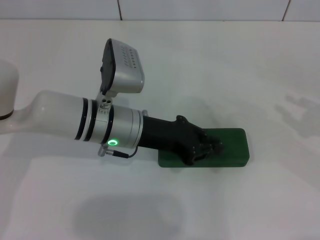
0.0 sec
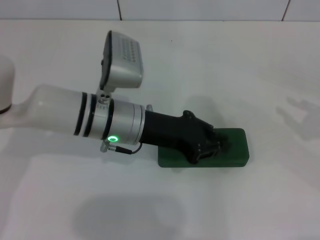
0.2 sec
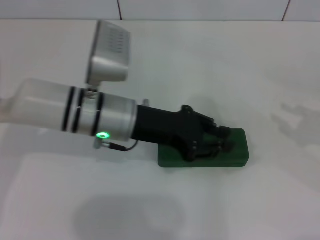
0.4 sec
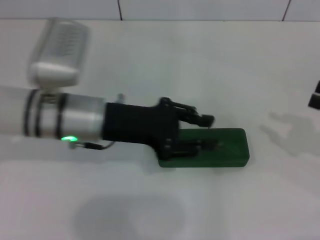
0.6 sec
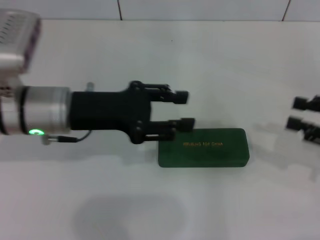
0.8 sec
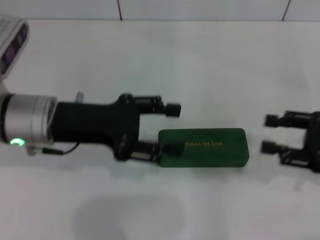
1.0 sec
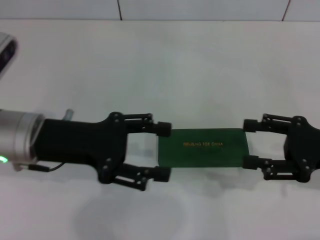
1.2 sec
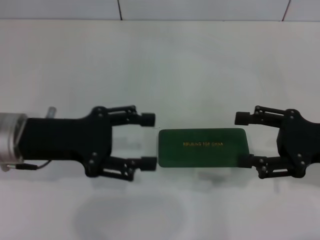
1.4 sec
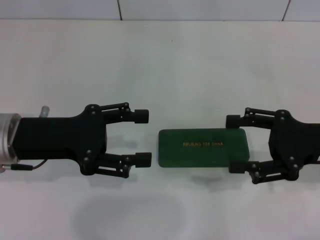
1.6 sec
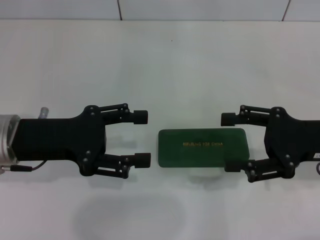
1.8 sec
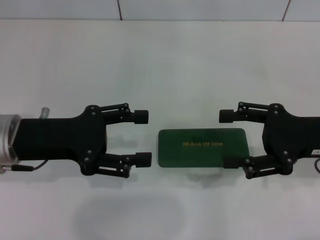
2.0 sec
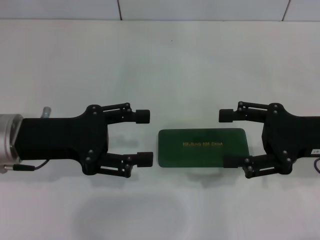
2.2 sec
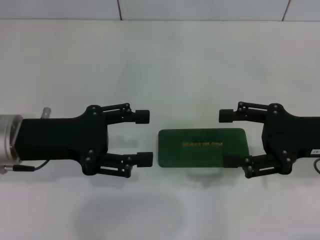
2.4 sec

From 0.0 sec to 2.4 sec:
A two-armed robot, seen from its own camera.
From 0.0 sec to 1.2 sec: The right gripper moves to the left, about 10 cm; the left gripper is displaced to the left and upward by some 10 cm, and opens its fingers.
From 1.2 sec to 2.4 sec: There are only small adjustments of the grippers.

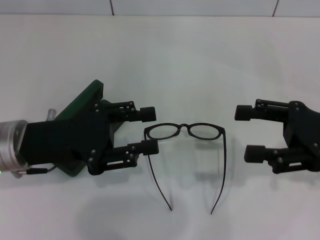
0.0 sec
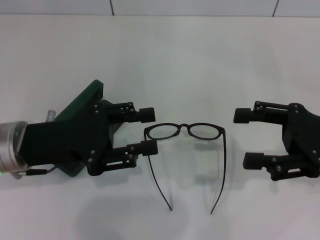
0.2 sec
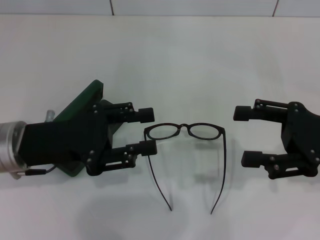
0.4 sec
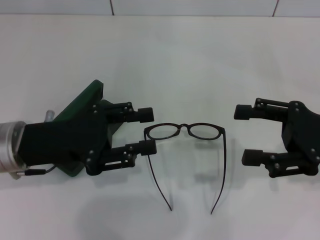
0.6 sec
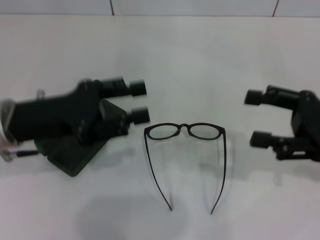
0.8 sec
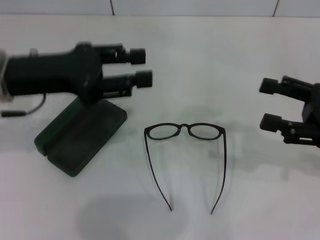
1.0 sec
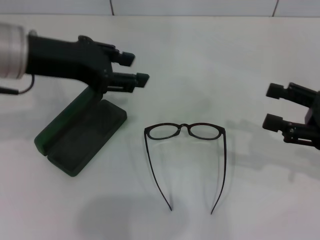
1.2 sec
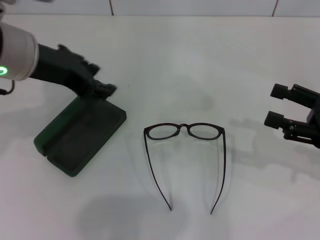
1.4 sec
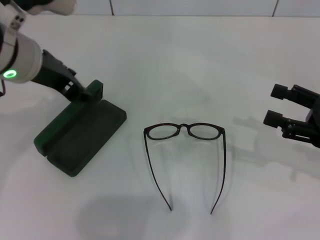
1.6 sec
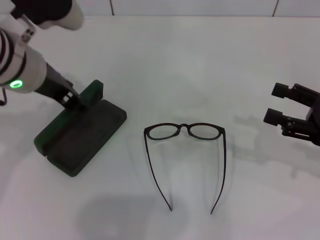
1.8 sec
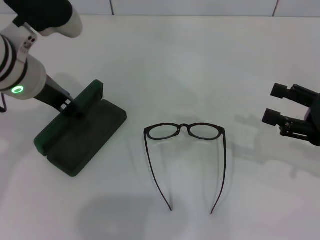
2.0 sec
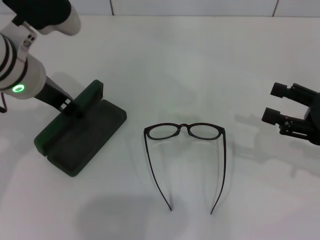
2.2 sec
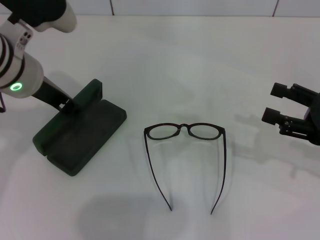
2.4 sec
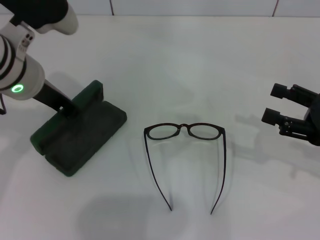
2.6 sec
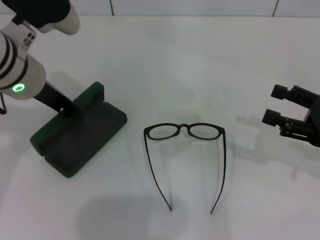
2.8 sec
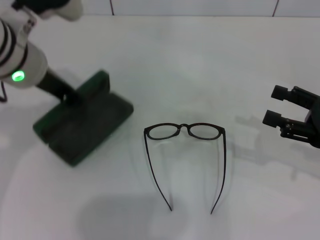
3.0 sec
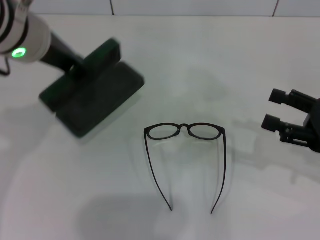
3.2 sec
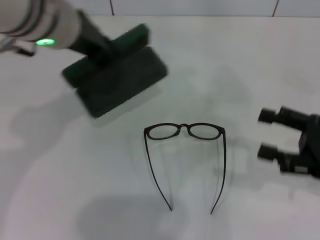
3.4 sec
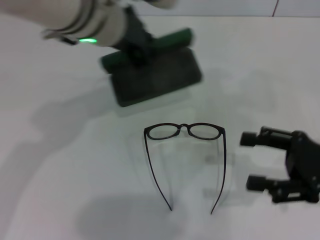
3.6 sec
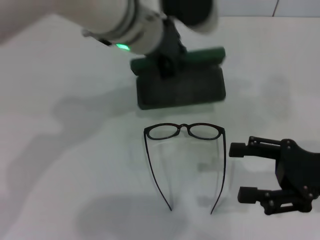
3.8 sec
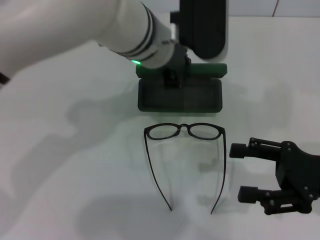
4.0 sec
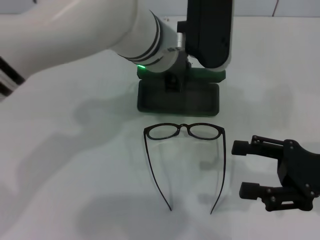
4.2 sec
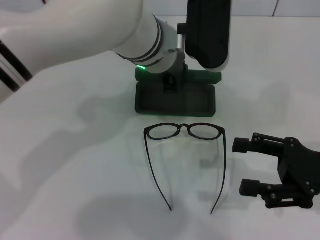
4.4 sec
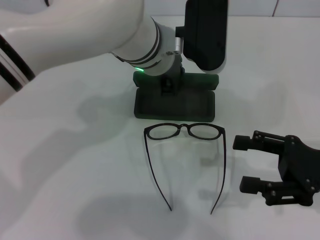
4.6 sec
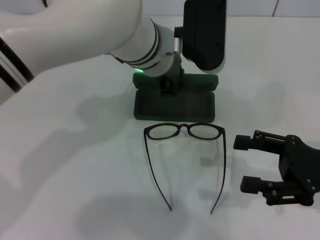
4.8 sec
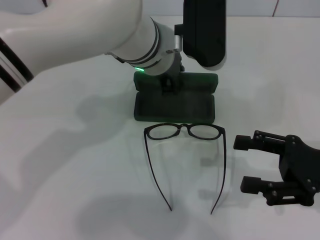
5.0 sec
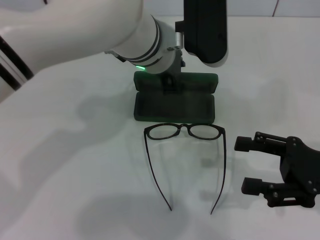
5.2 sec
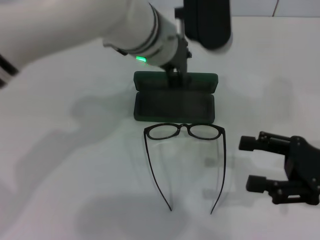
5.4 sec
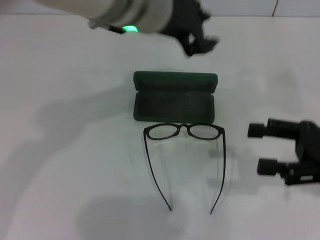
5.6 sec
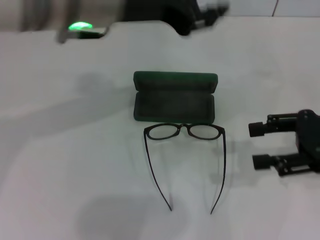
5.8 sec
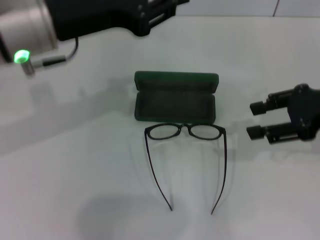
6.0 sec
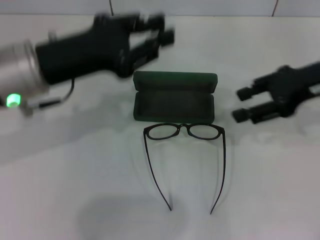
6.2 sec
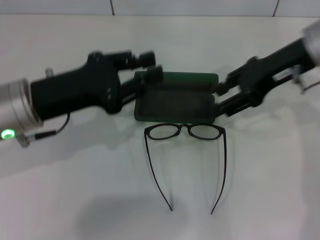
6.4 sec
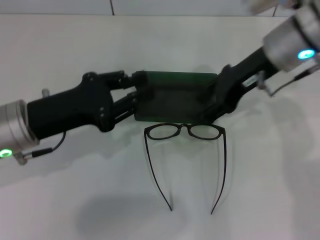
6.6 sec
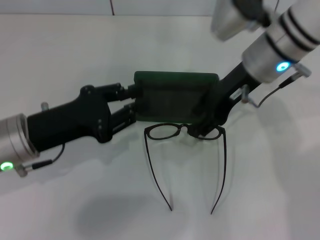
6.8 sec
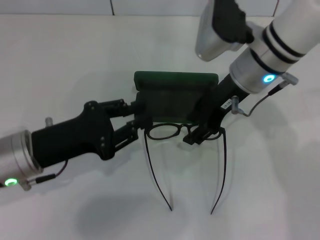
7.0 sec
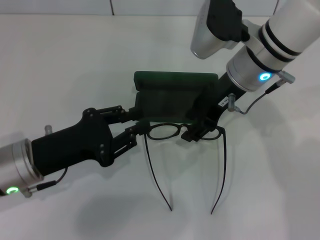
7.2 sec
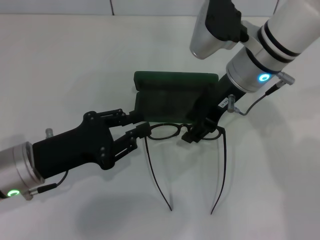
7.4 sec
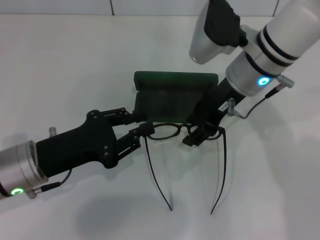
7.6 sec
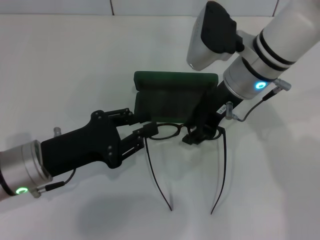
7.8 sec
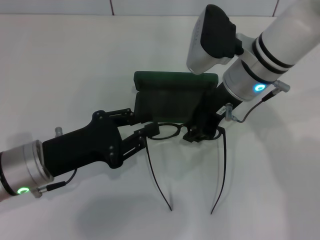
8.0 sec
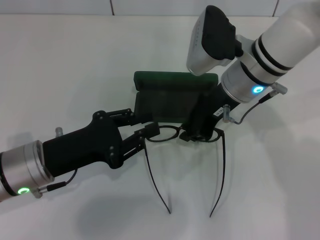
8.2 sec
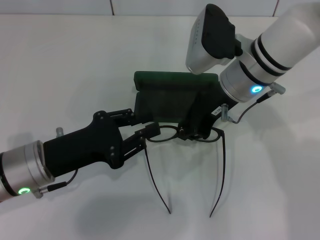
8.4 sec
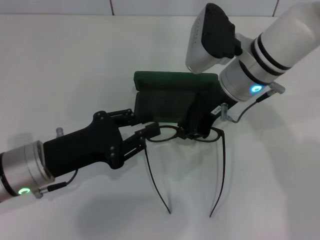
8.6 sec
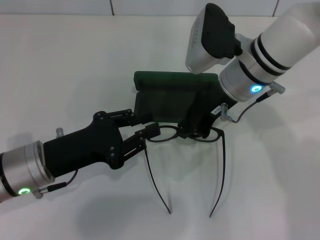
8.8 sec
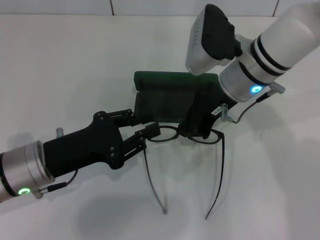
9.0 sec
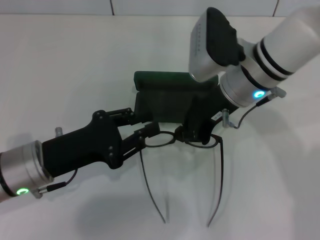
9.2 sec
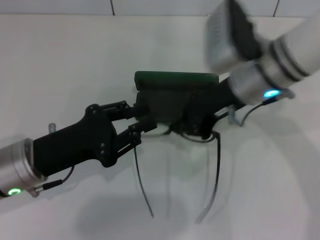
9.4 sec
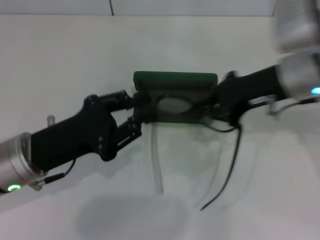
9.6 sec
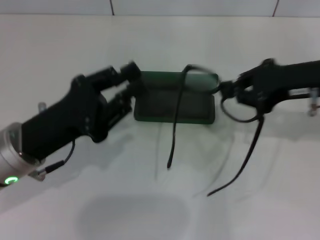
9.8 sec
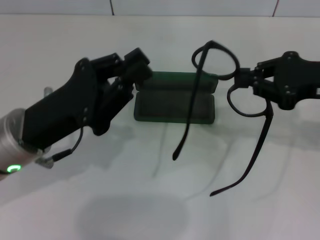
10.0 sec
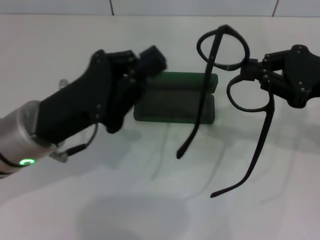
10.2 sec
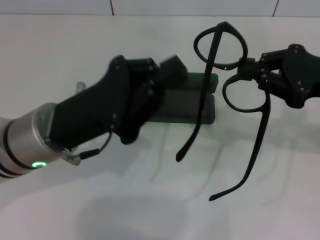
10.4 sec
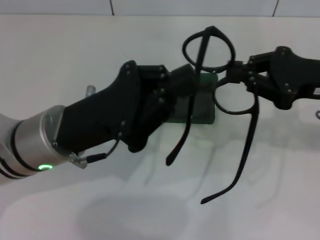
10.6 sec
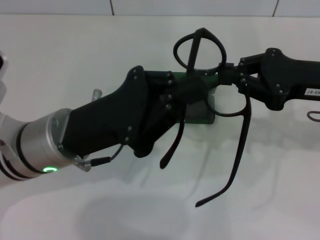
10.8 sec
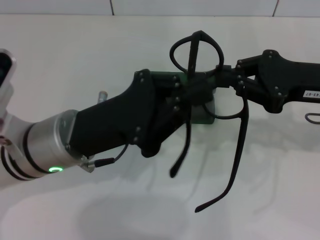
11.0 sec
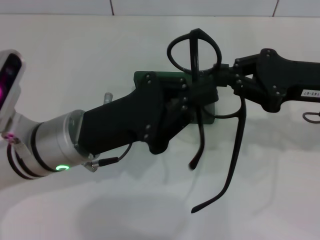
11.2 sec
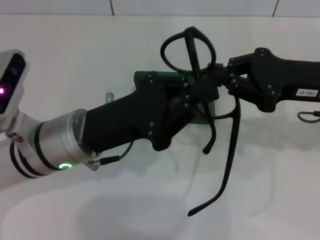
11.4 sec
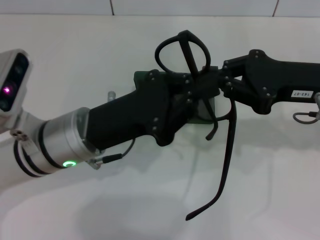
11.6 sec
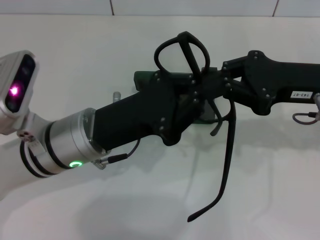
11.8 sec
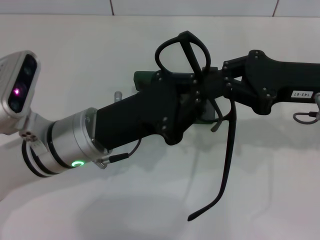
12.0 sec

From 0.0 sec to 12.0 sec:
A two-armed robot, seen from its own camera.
Step, from 0.0 sec to 2.6 sec: Grab the glasses case with your left hand.
Step, from 2.8 sec to 4.8 sec: Place the glasses case in the center of the table with your left hand.
Step, from 5.2 sec to 8.8 sec: Grab the eyeglass frame with your right hand.
From 0.0 sec to 1.6 sec: The right gripper changes place by some 5 cm; the left gripper heads upward and forward, covering approximately 15 cm.
From 1.6 sec to 3.0 sec: The left gripper closes.
From 3.0 sec to 4.4 sec: The left gripper heads to the right, covering roughly 15 cm.
From 4.4 sec to 6.0 sec: The right gripper travels upward and forward by some 10 cm. The left gripper travels to the left and backward by roughly 15 cm.
From 6.0 sec to 7.6 sec: The left gripper is displaced downward and backward by some 15 cm. The right gripper is displaced to the left by some 15 cm.
From 7.6 sec to 9.0 sec: The right gripper closes its fingers.
From 9.0 sec to 10.4 sec: The left gripper goes some 5 cm upward, and closes up; the right gripper travels to the right by roughly 15 cm.

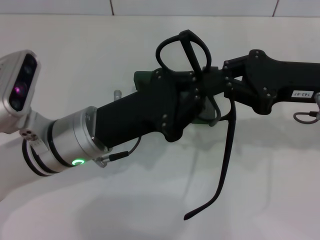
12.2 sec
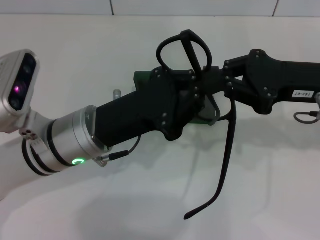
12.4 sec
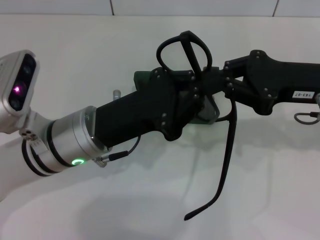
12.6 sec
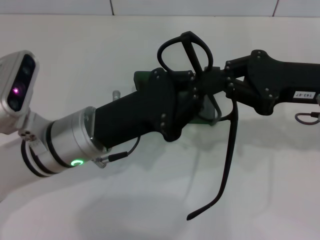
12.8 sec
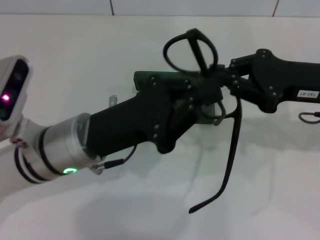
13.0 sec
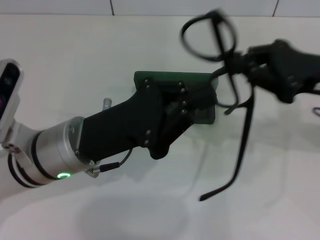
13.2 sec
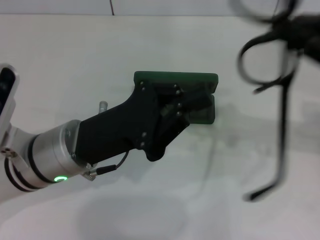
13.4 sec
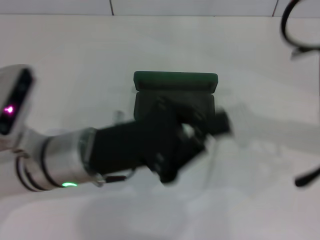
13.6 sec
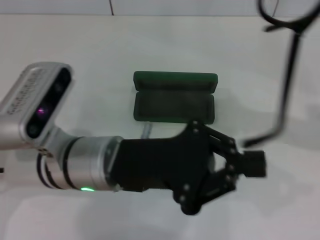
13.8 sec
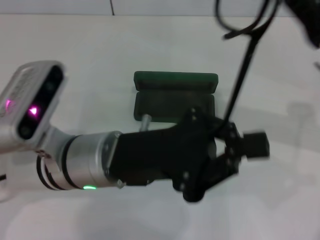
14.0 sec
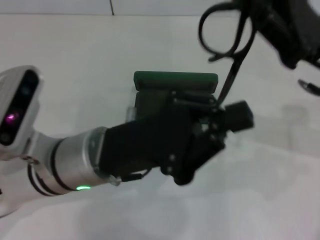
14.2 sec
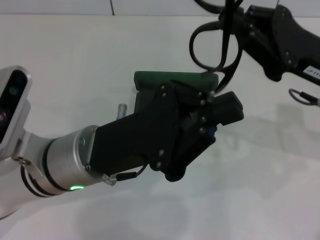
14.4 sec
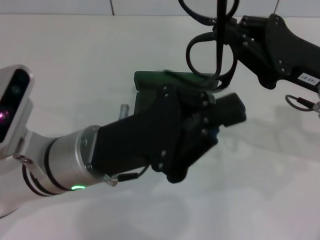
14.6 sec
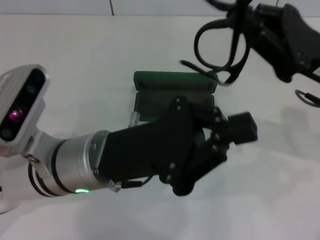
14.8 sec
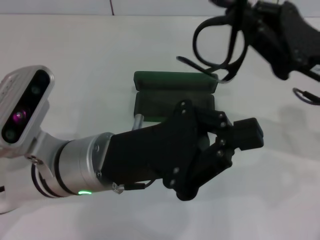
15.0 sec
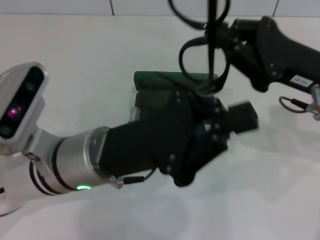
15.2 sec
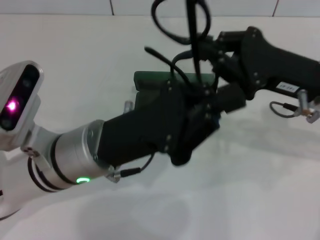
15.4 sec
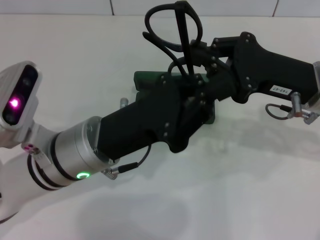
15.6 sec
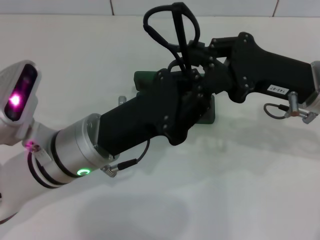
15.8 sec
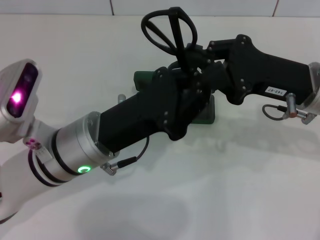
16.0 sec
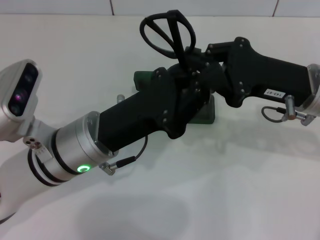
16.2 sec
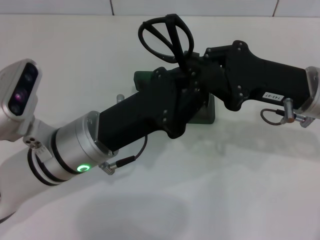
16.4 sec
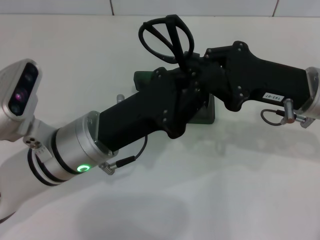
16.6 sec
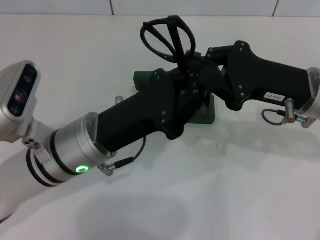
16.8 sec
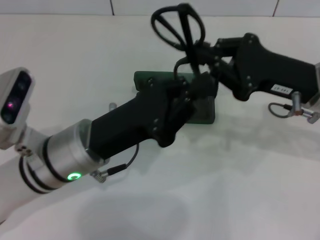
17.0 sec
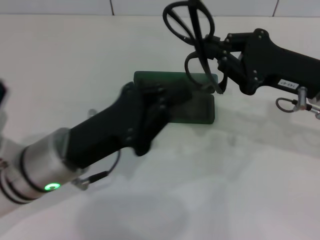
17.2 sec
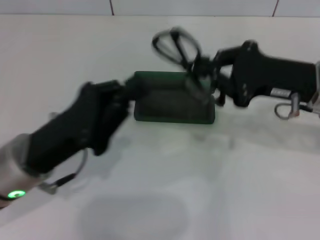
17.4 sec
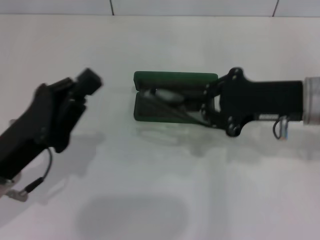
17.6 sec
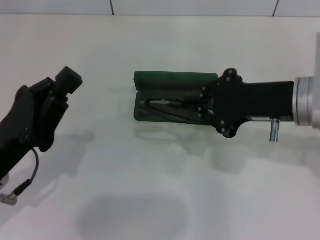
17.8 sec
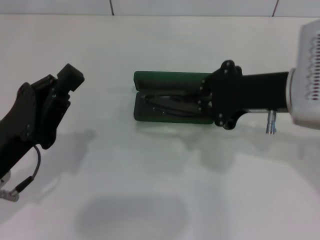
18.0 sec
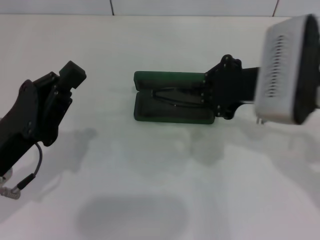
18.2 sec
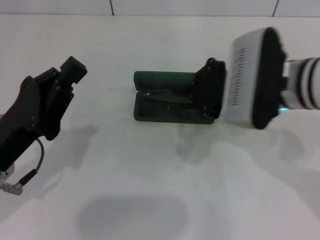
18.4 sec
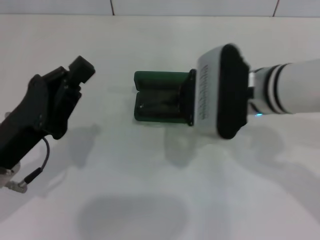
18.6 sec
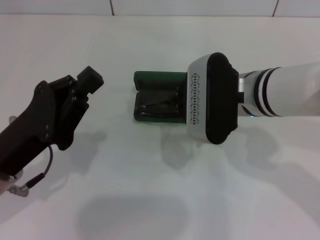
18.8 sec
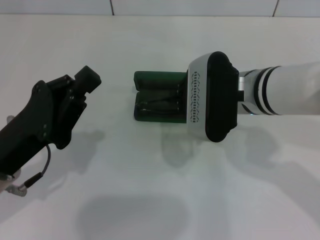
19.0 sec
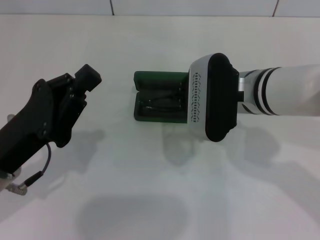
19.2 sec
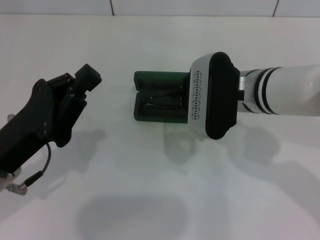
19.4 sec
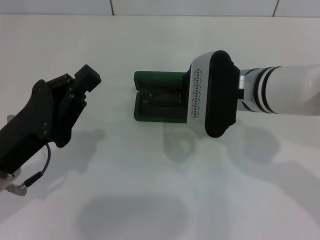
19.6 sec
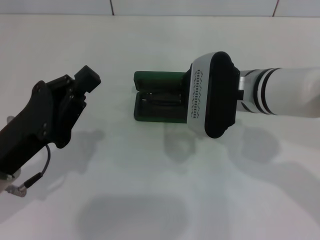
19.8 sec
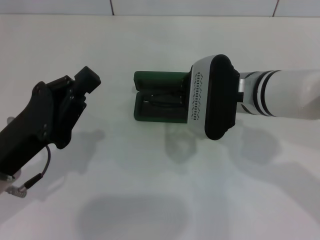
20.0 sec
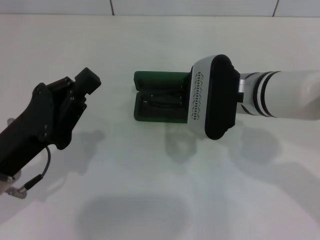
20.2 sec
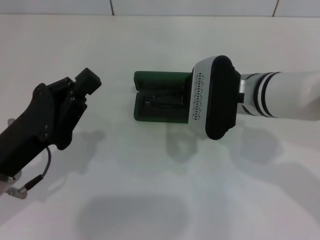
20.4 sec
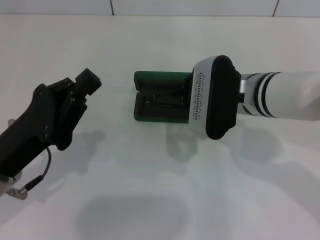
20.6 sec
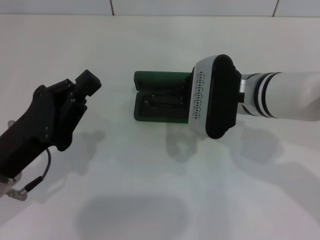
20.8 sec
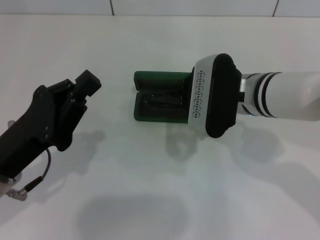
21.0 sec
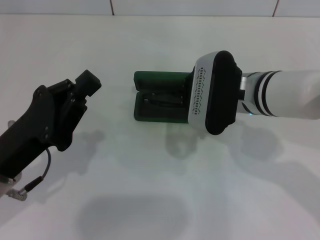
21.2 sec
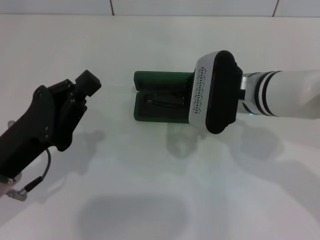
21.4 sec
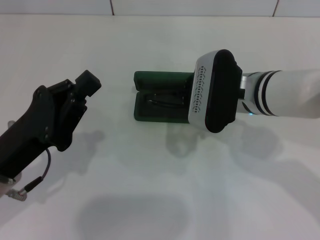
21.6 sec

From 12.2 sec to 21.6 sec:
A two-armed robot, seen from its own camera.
Step, from 12.2 sec to 16.6 sec: Fold the frame with your left hand.
From 13.8 sec to 15.4 sec: The right gripper travels to the left by approximately 5 cm.
From 15.4 sec to 17.0 sec: The grippers make only small movements.
From 17.0 sec to 18.4 sec: The grippers both shift to the left by roughly 10 cm.
From 18.4 sec to 20.0 sec: The right gripper changes place by about 5 cm.
From 20.0 sec to 21.6 sec: Neither gripper changes place.
